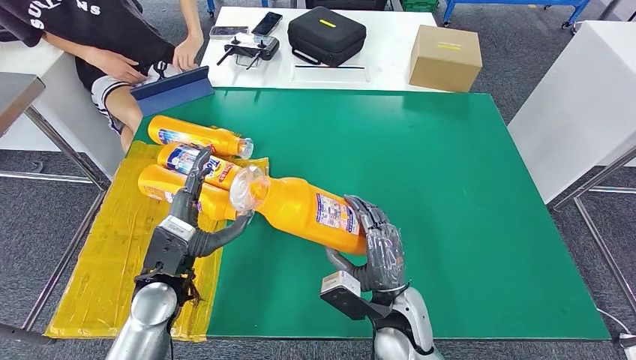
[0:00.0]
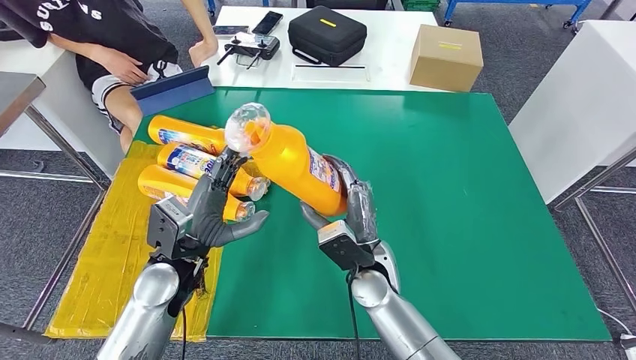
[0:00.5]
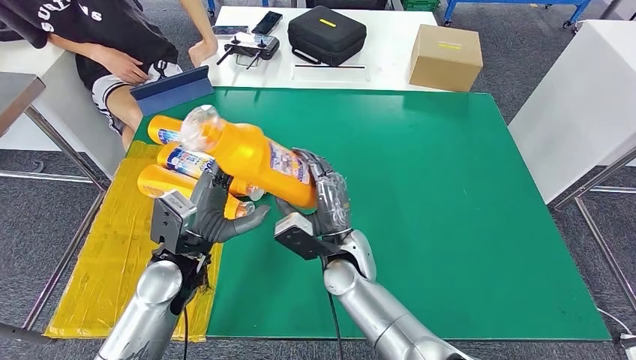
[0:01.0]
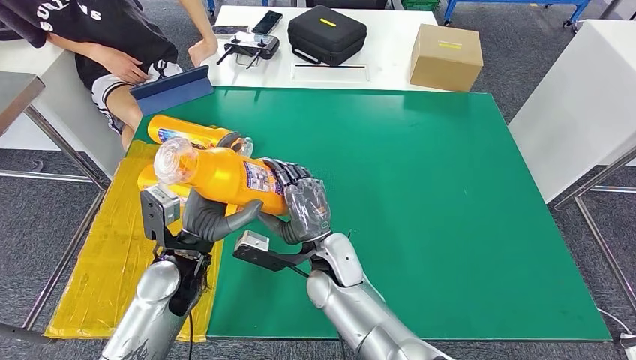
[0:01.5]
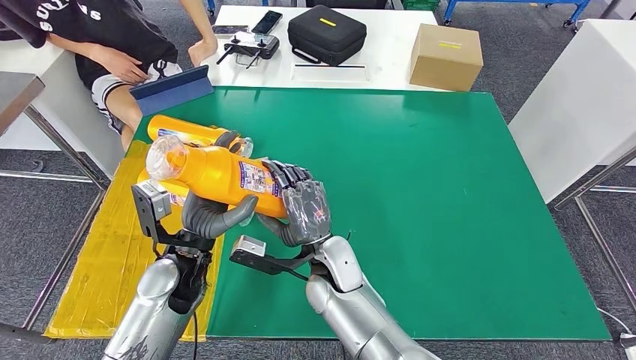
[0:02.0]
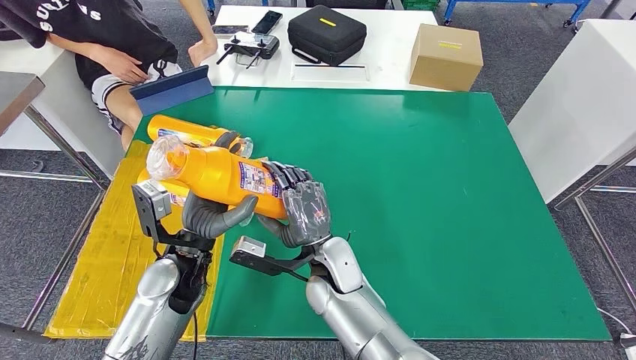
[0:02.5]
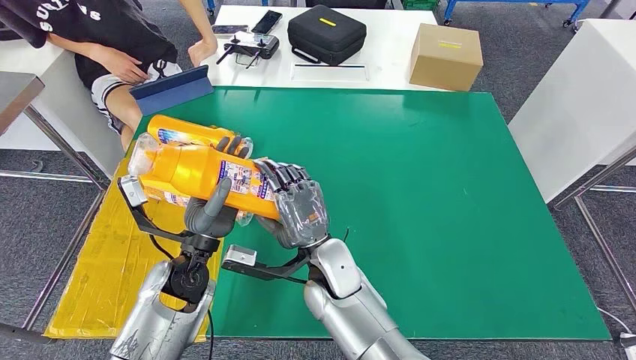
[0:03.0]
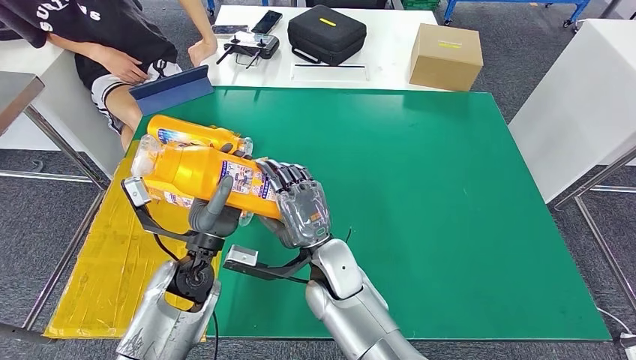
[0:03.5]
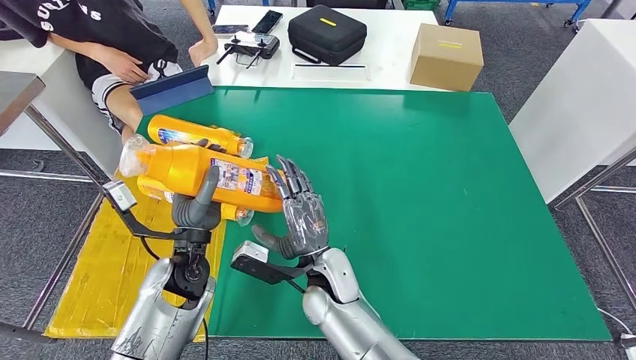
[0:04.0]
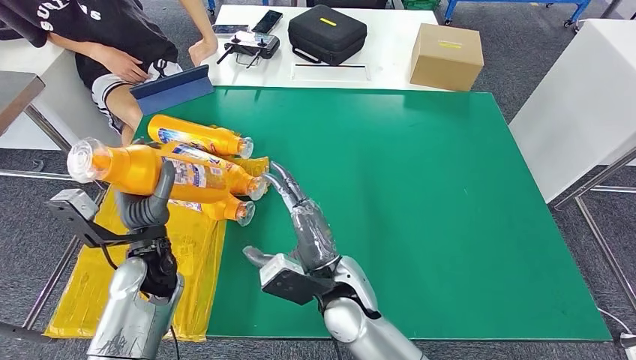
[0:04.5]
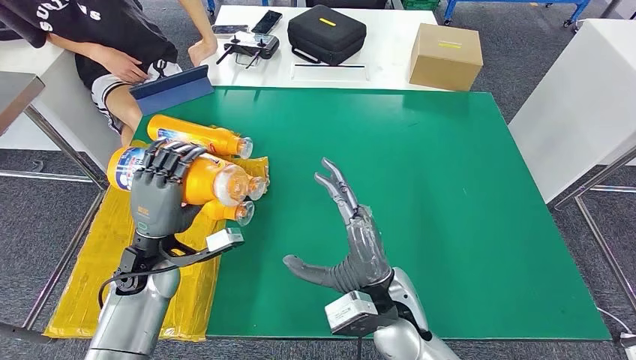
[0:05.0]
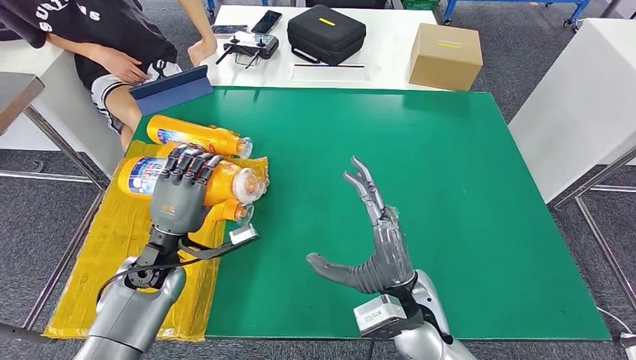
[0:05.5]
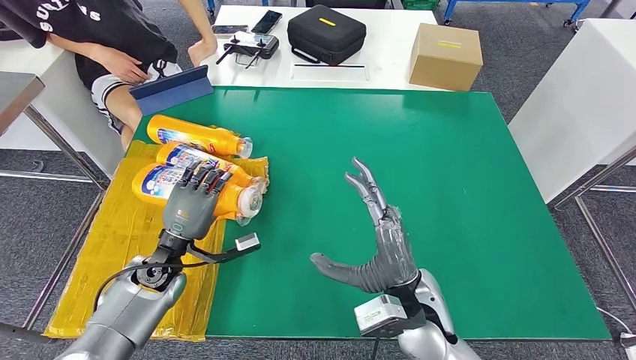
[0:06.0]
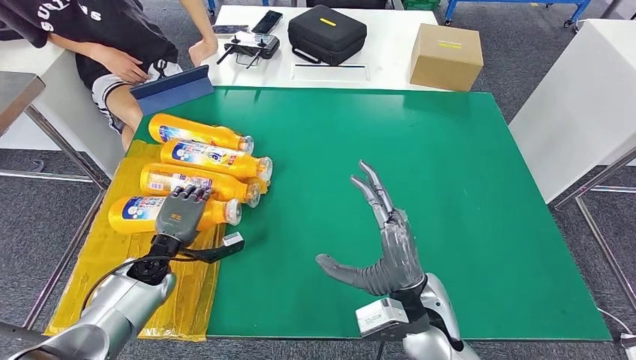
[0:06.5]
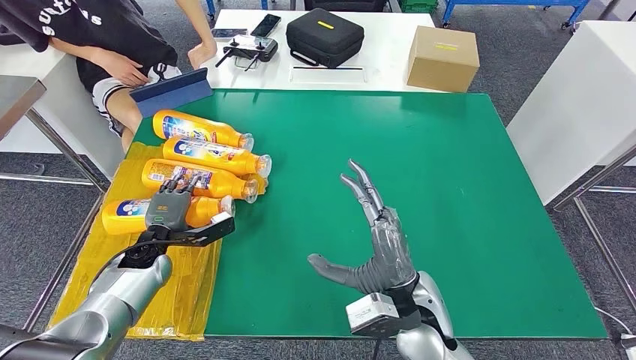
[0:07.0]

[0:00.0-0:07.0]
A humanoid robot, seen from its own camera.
Step, 0:00.0 to 0:02.0: Pick up the fast-moving consumer goods bottle from the table.
Step, 0:02.5 to 0:07.0: Flip the fast-moving consumer goods bottle to the front side.
0:00.0 to 0:02.0: The right hand shifts roughly 15 cm to the left and forward.
0:03.5 to 0:05.0: The right hand heads to the right and backward, covering roughly 10 cm. Meanwhile the left hand heads to the left, covering some 10 cm.

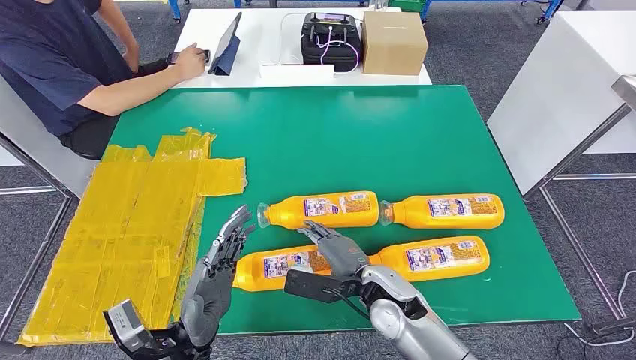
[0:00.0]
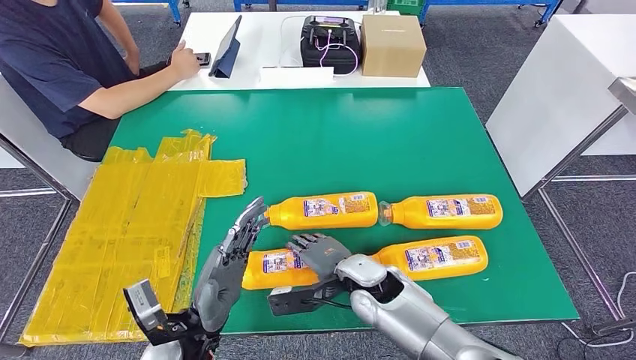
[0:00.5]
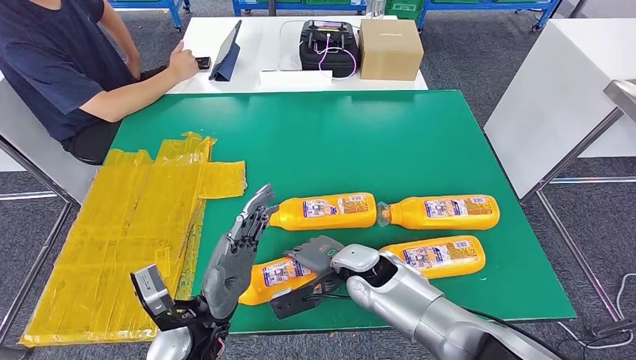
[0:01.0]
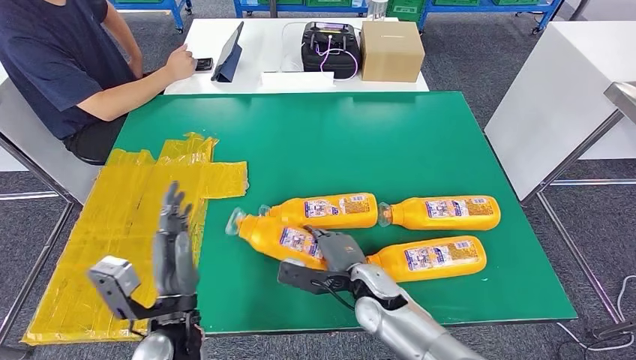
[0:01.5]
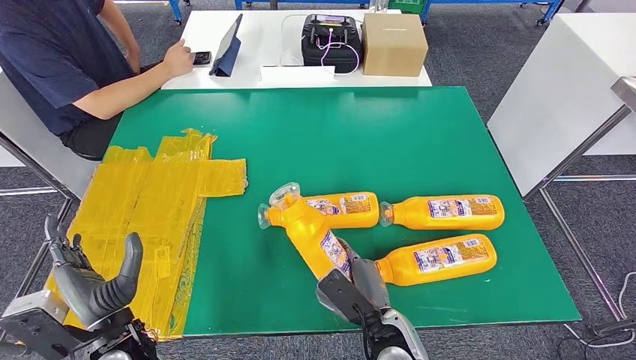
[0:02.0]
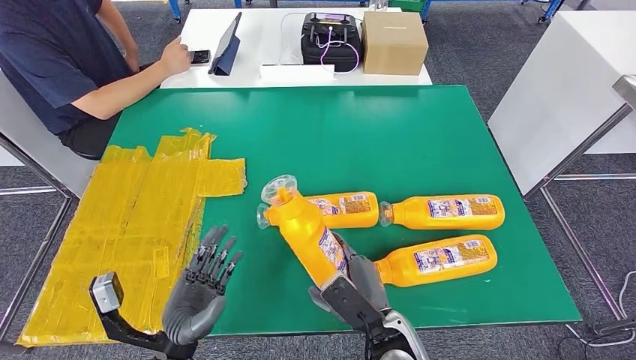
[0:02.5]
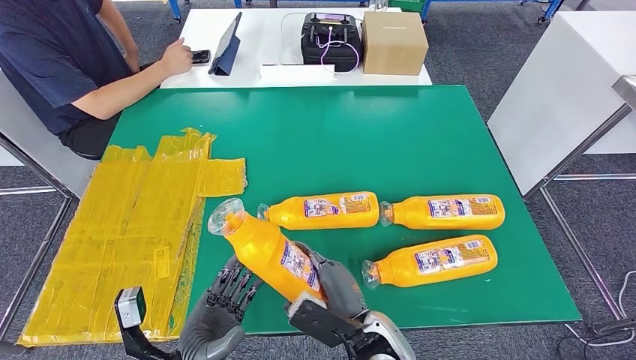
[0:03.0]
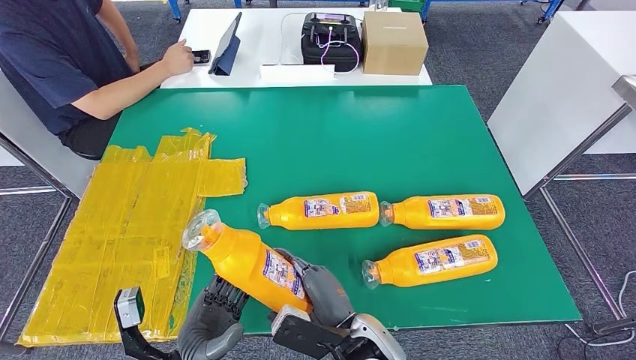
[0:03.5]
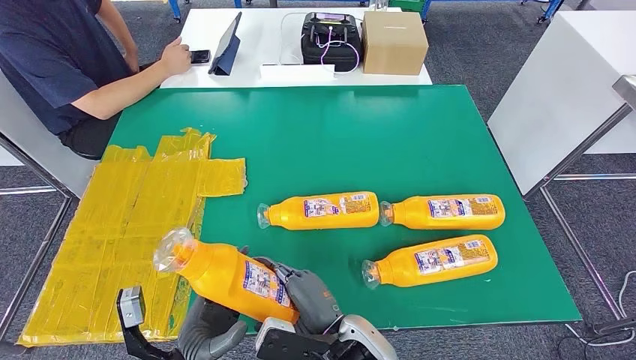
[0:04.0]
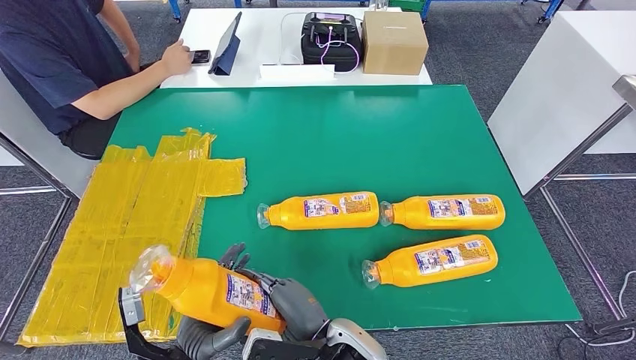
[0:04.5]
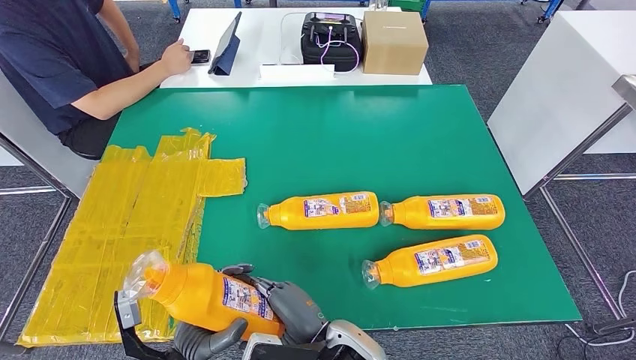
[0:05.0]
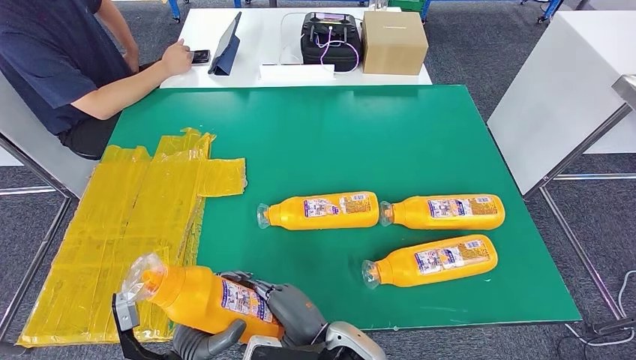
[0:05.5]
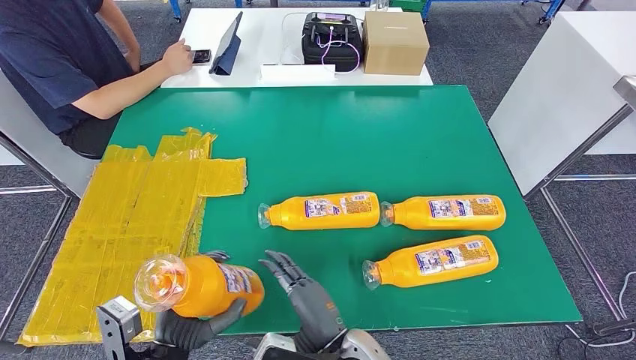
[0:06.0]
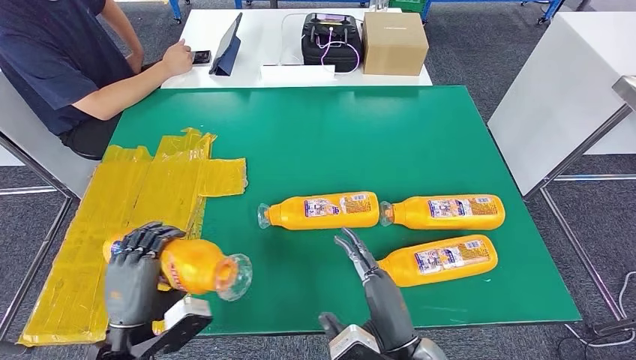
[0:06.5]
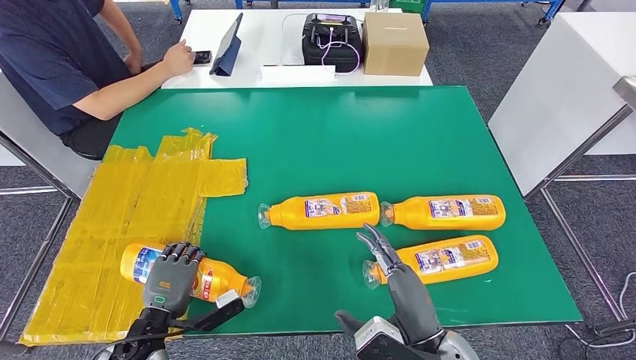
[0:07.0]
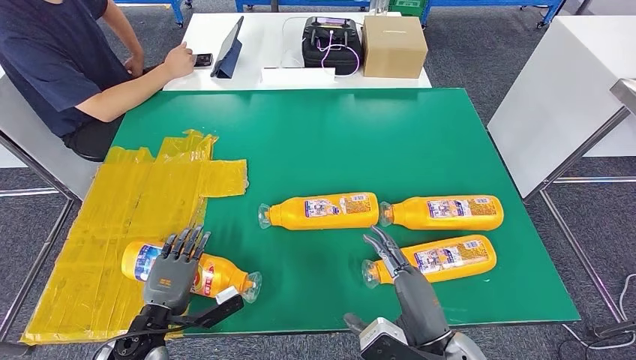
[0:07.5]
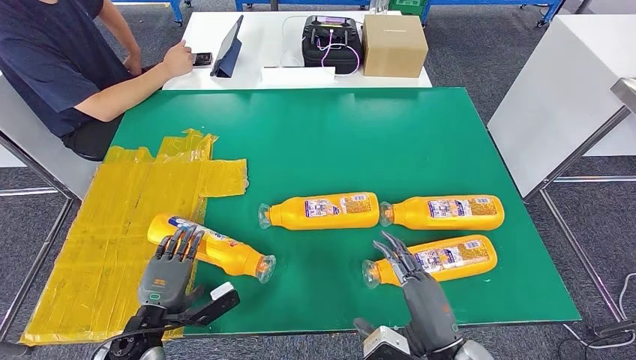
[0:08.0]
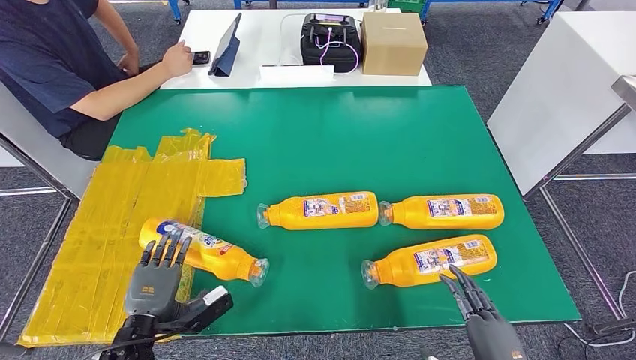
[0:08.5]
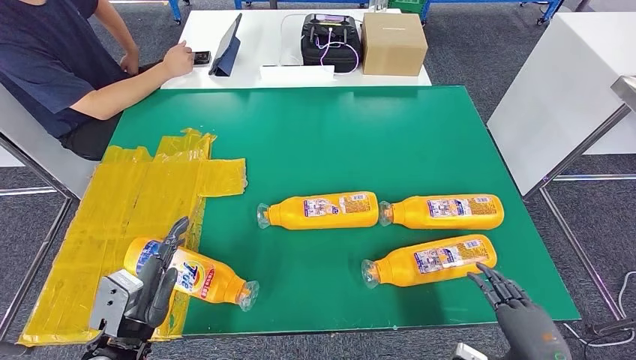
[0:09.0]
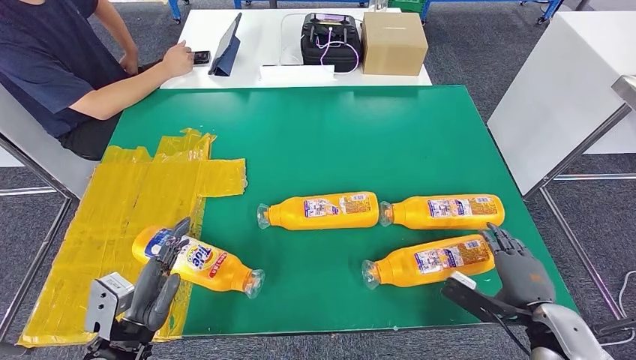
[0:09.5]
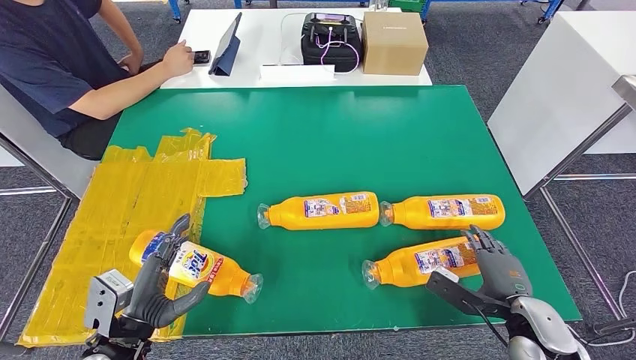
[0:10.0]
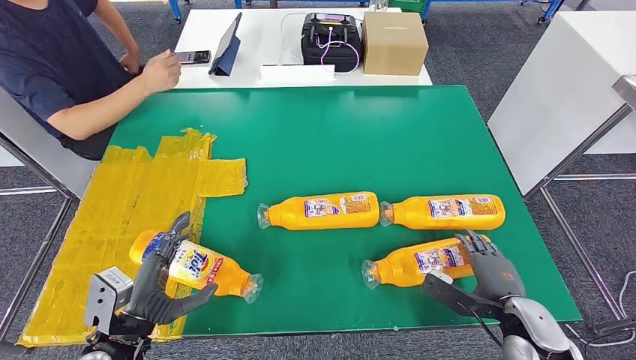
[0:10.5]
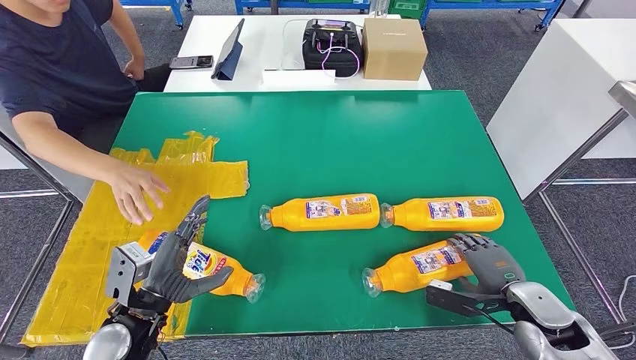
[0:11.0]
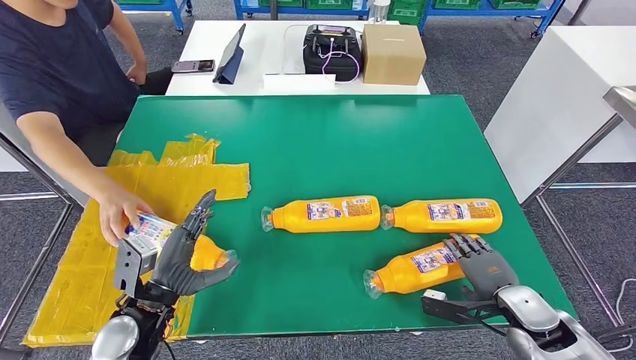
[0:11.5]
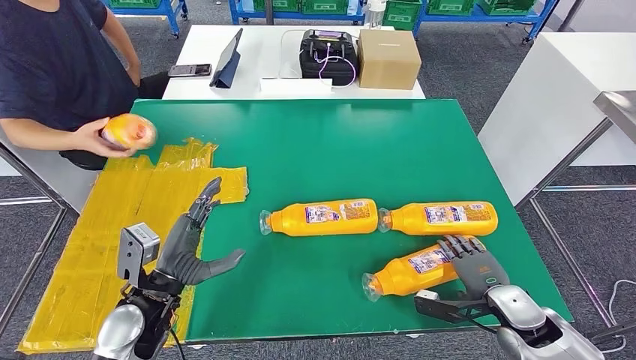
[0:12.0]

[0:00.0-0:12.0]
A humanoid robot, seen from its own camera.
Step, 0:00.0 to 0:03.5: Take the fast-moving consumer goods bottle from the table.
Step, 0:04.0 to 0:08.0: Flip the fast-moving consumer goods bottle to the front side.
0:02.0 to 0:04.0: The left hand heads to the right, covering roughly 5 cm; the right hand moves to the left, roughly 5 cm.
0:06.0 to 0:08.0: The left hand heads to the left, forward and downward, covering roughly 10 cm; the right hand is displaced to the right by roughly 15 cm.
0:08.0 to 0:10.0: The left hand travels upward by approximately 5 cm; the right hand goes approximately 20 cm to the right, forward and downward.

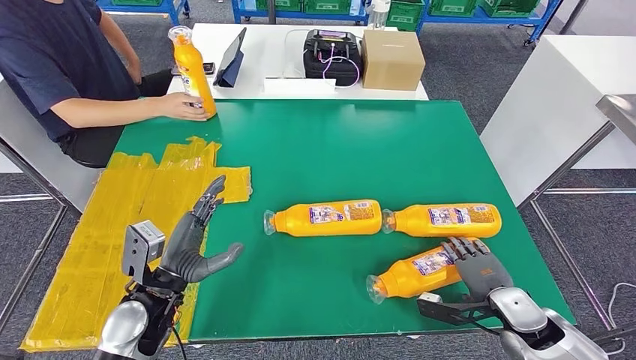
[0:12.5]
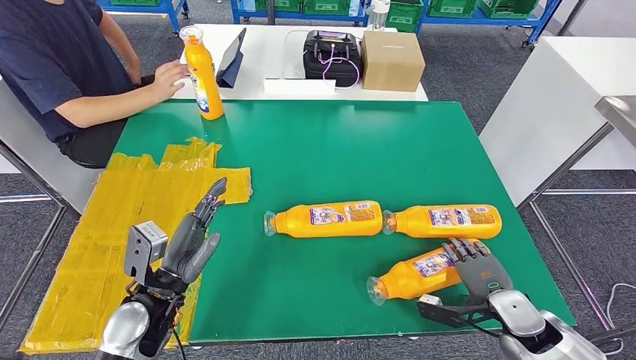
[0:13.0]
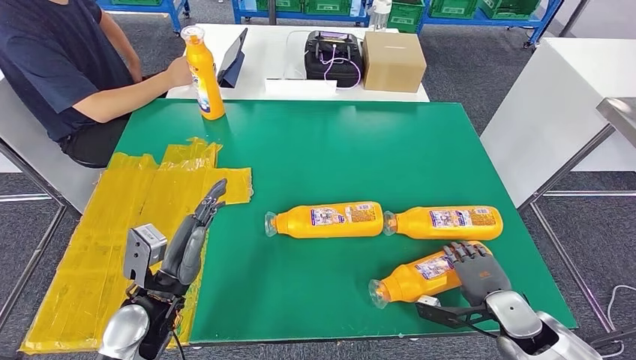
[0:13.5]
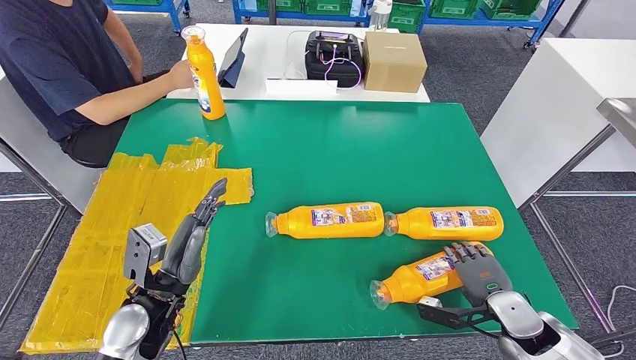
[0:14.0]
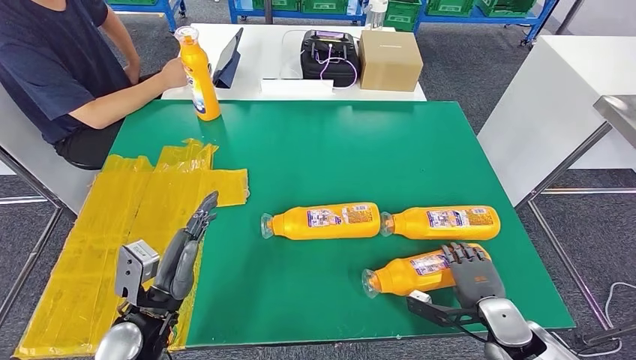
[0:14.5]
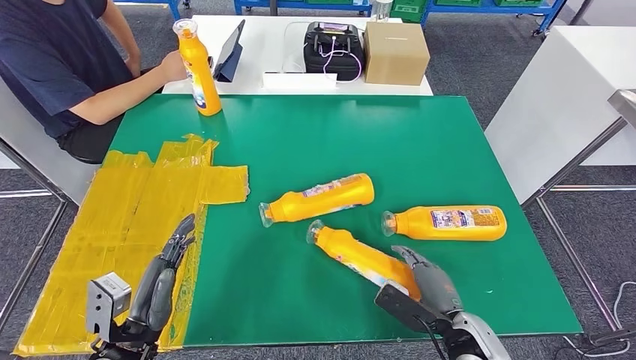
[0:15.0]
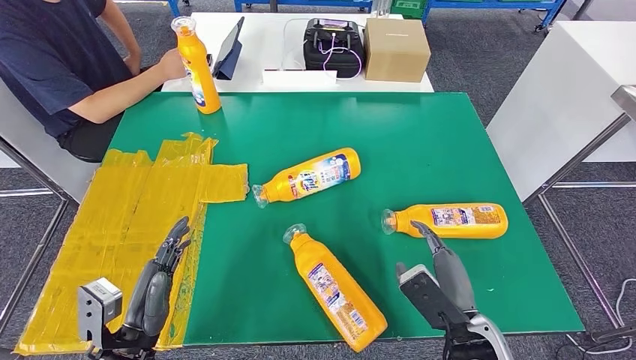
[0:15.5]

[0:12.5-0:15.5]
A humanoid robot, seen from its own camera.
0:12.5 to 0:14.0: The hands make only small movements.
